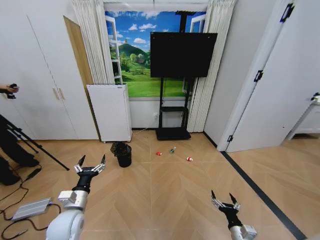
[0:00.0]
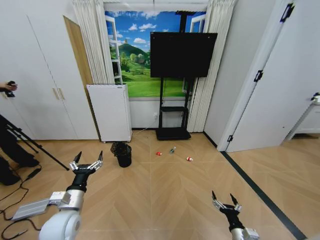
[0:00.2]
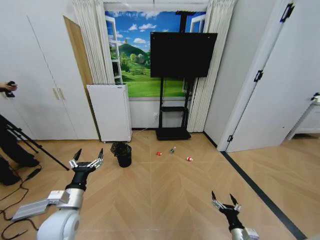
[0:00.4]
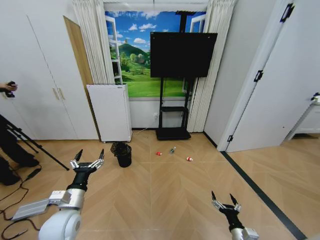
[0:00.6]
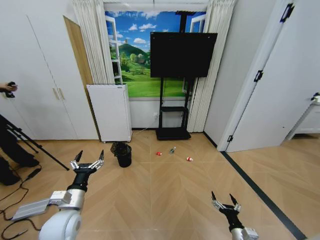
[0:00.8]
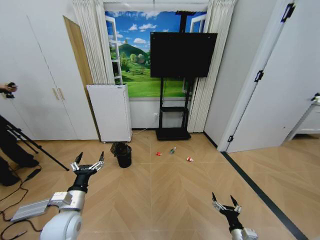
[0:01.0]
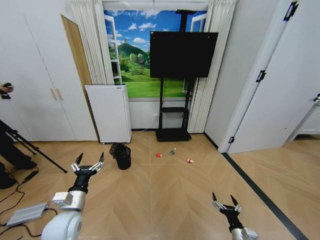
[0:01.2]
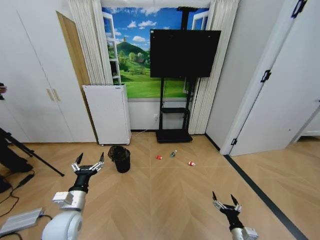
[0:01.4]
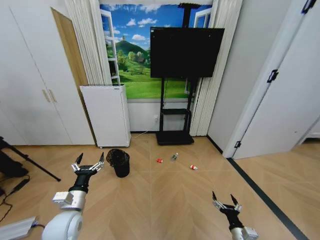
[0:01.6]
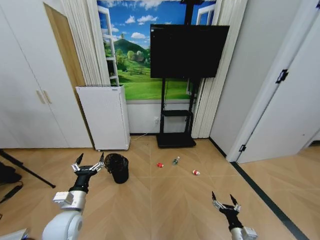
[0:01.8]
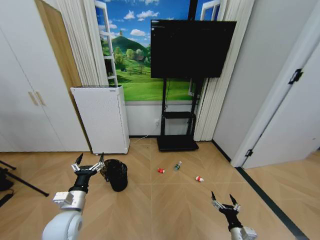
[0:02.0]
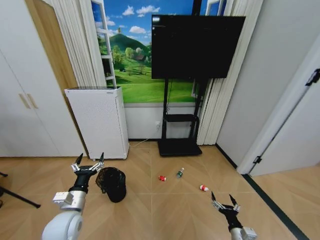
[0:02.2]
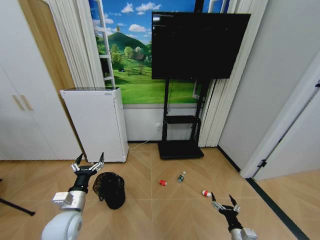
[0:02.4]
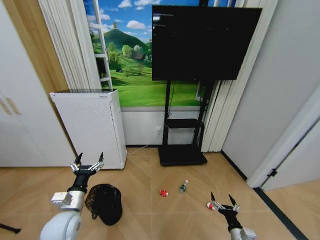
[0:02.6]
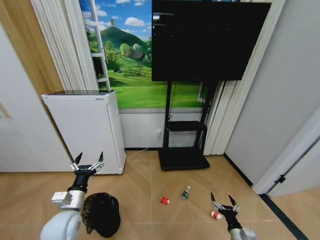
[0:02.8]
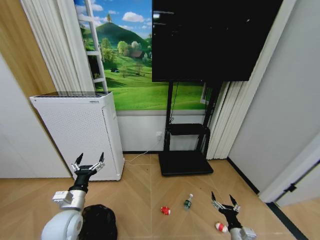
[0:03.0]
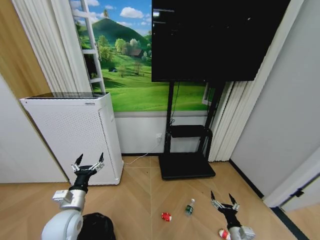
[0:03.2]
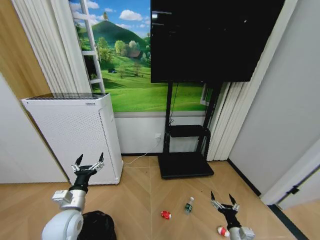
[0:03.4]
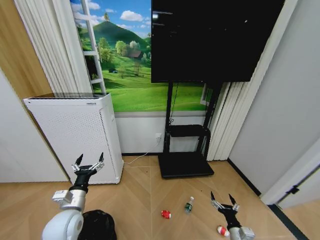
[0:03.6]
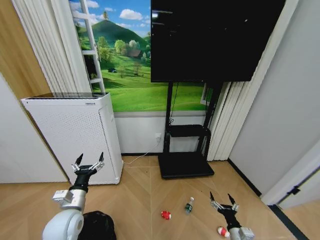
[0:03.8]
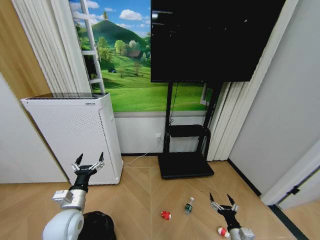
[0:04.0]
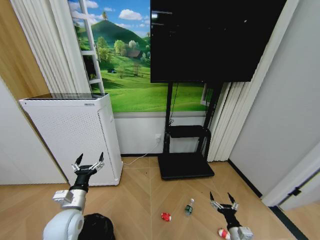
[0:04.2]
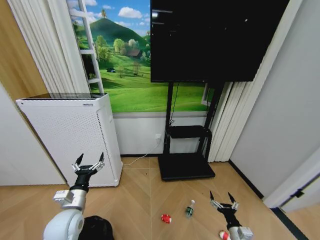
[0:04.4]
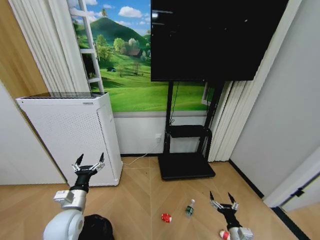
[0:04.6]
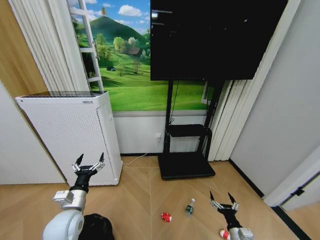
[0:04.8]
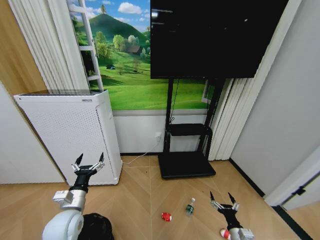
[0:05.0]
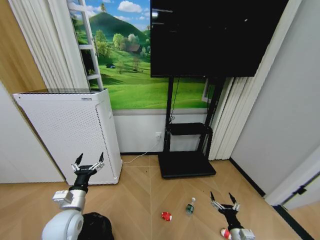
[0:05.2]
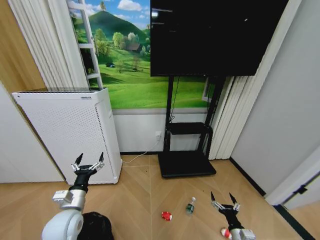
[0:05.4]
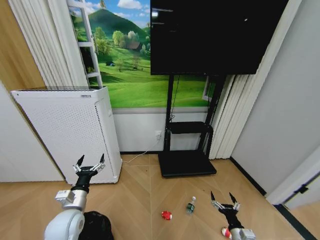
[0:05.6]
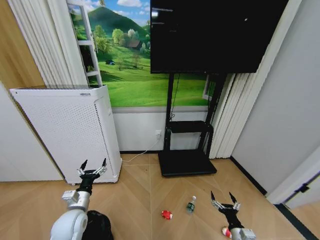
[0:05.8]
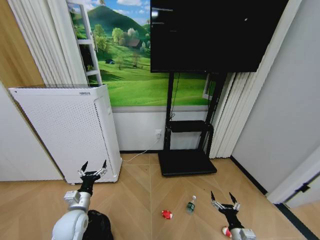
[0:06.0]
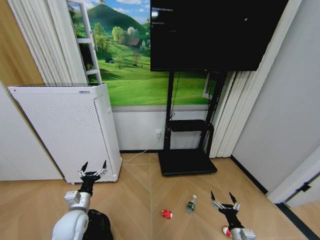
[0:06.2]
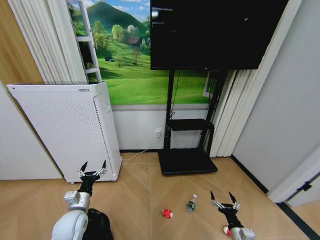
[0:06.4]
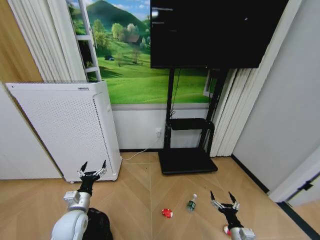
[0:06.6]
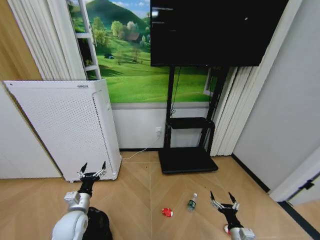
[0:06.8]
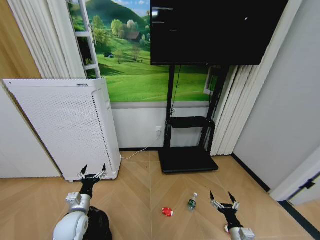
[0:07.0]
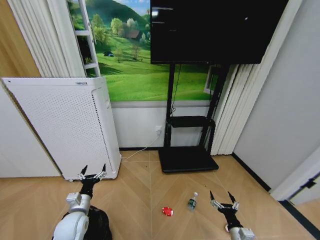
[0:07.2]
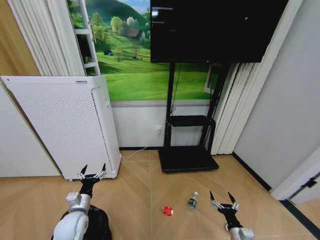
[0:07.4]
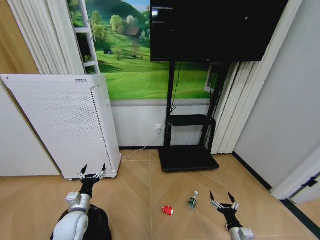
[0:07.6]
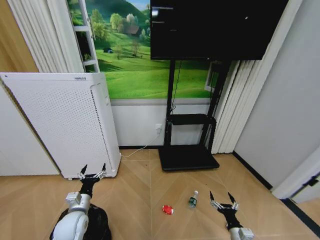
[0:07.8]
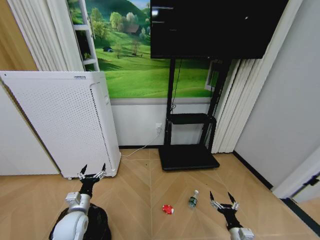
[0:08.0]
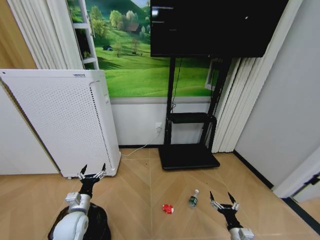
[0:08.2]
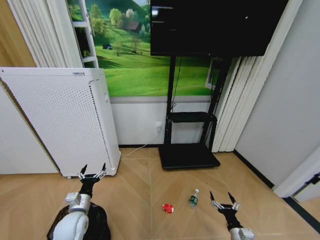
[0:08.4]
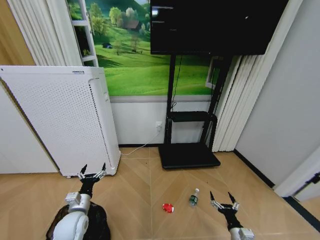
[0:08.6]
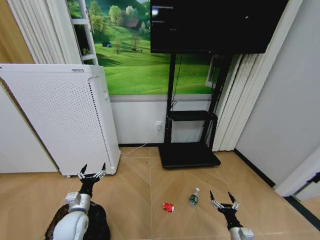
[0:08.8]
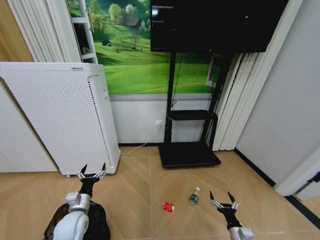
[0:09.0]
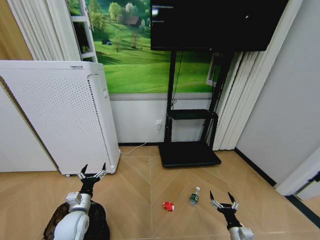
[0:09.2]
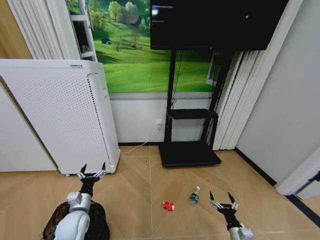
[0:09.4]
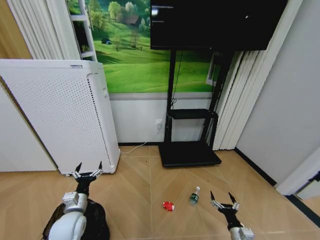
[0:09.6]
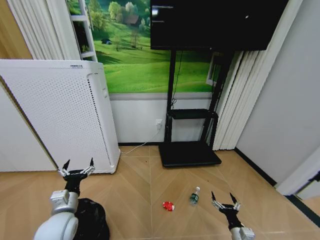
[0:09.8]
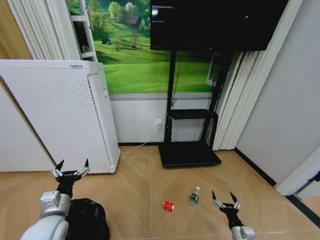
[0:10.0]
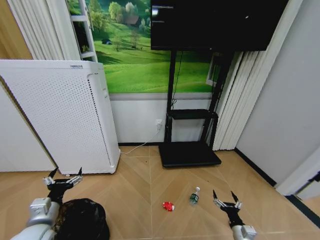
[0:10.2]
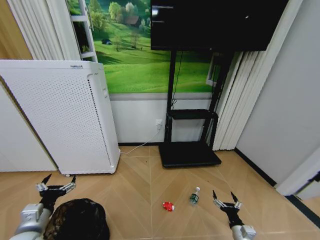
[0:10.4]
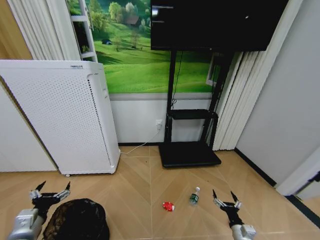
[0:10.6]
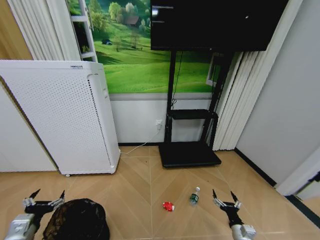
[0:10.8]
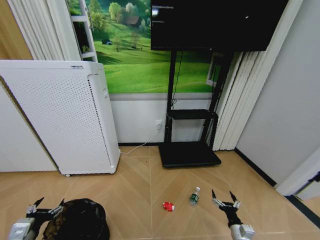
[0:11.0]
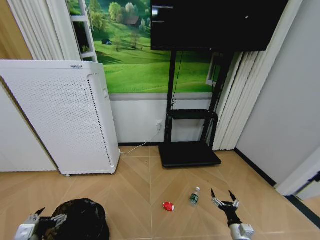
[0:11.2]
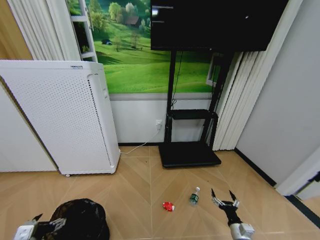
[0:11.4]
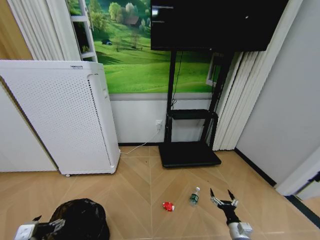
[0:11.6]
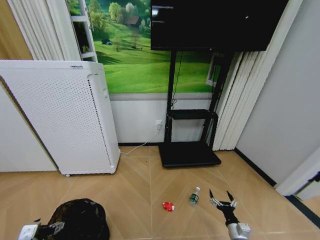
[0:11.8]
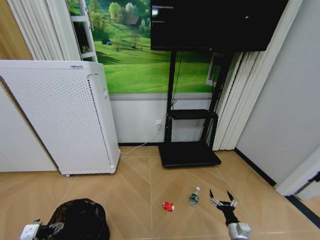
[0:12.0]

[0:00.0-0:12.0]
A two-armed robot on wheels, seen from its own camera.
Task of the whole recording: Pick up the trash bin and place the garbage on the floor into it.
0:03.0 to 0:06.0: The grippers move only a little.
0:06.0 to 0:07.6: The grippers make only small movements.
0:07.6 to 0:09.0: Neither gripper changes place.
0:09.0 to 0:10.4: The left gripper goes about 15 cm to the left, backward and upward.
0:10.4 to 0:12.0: The left gripper moves downward, about 5 cm.

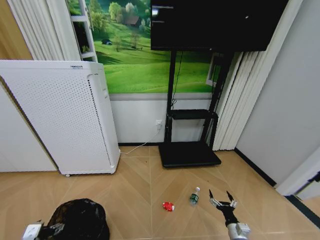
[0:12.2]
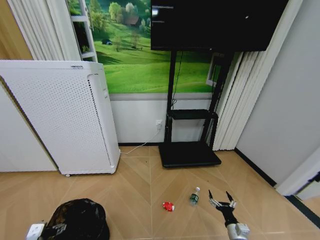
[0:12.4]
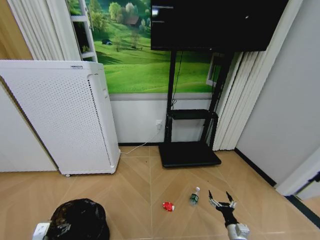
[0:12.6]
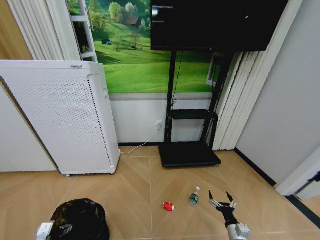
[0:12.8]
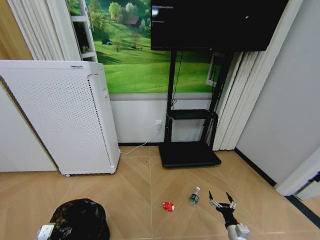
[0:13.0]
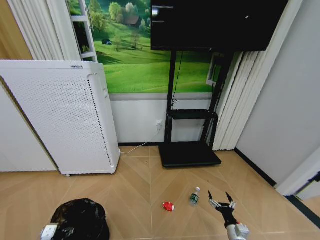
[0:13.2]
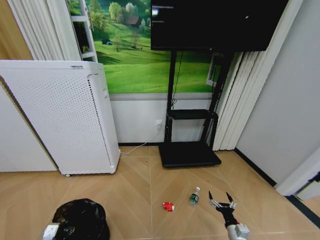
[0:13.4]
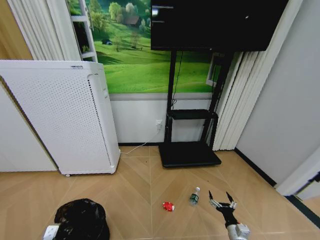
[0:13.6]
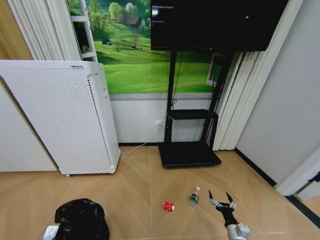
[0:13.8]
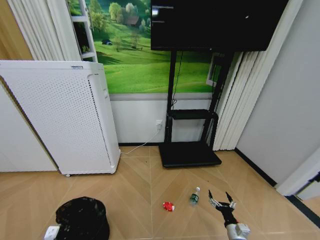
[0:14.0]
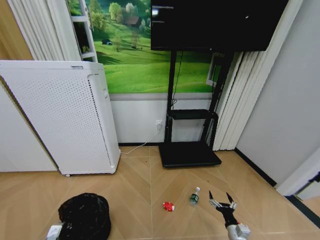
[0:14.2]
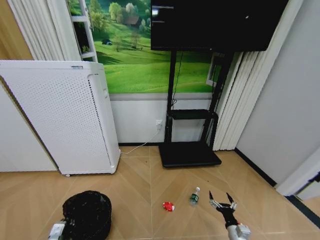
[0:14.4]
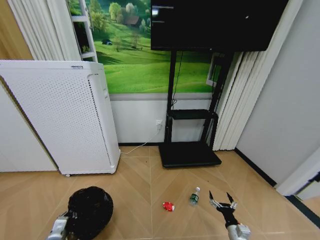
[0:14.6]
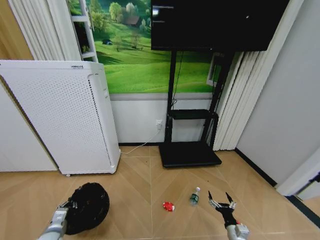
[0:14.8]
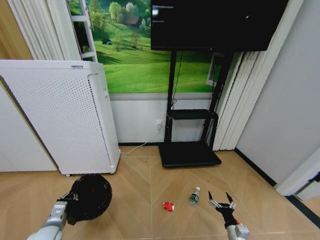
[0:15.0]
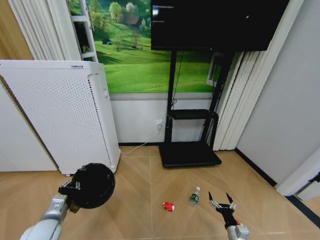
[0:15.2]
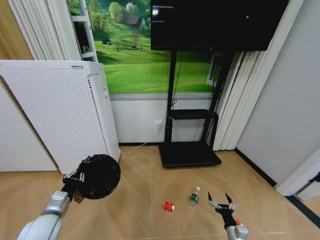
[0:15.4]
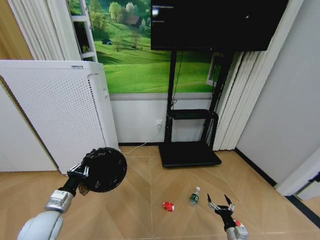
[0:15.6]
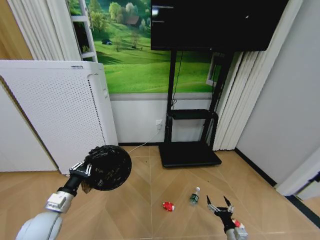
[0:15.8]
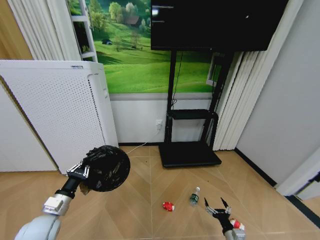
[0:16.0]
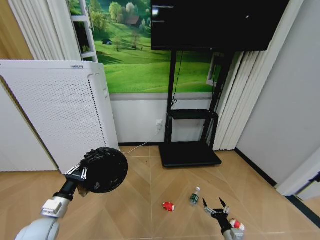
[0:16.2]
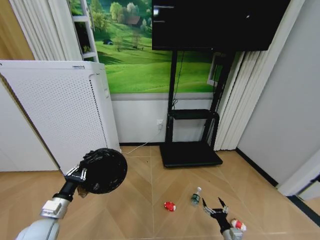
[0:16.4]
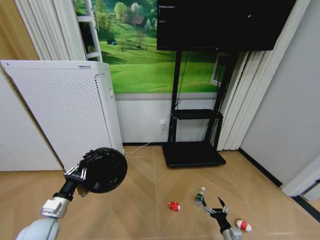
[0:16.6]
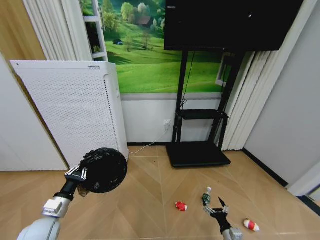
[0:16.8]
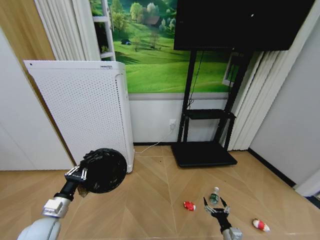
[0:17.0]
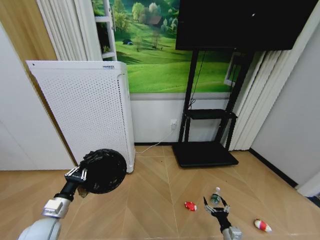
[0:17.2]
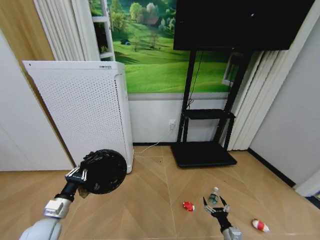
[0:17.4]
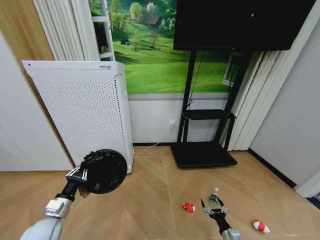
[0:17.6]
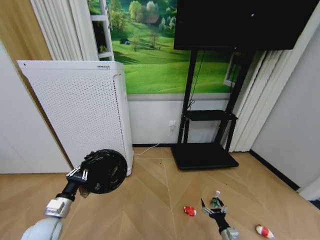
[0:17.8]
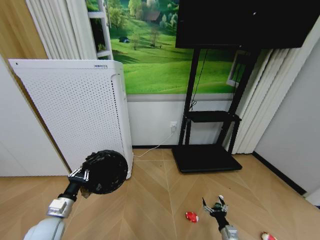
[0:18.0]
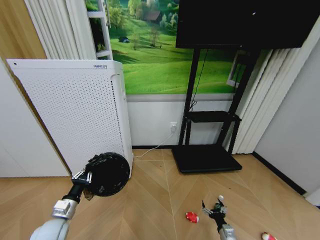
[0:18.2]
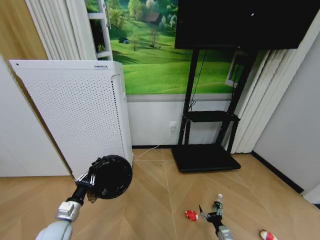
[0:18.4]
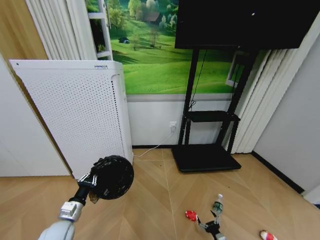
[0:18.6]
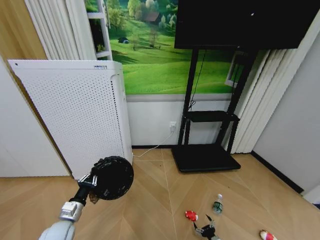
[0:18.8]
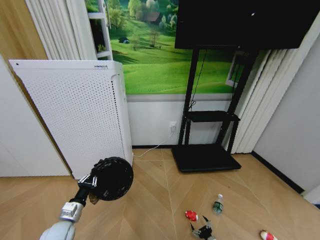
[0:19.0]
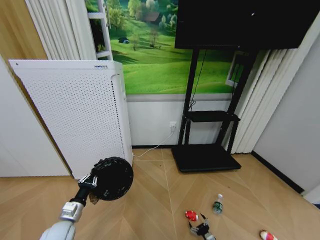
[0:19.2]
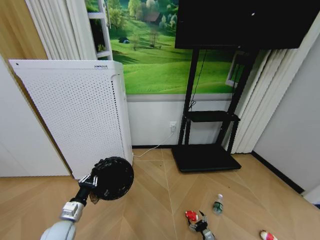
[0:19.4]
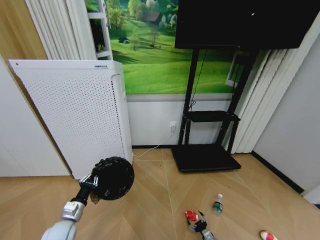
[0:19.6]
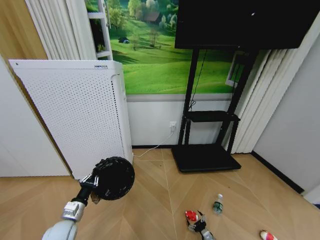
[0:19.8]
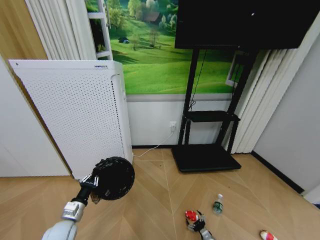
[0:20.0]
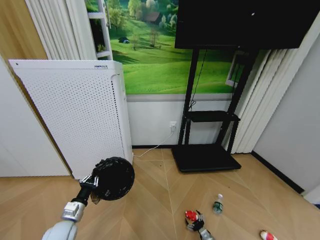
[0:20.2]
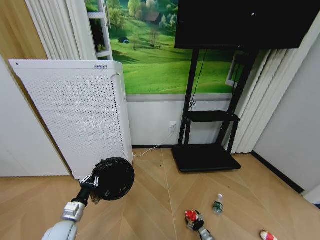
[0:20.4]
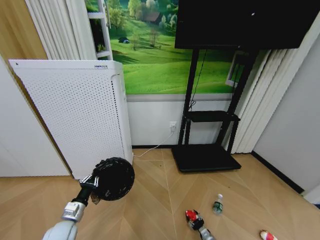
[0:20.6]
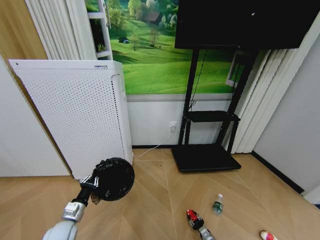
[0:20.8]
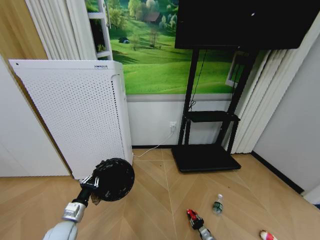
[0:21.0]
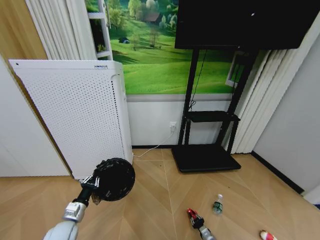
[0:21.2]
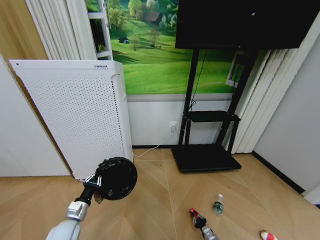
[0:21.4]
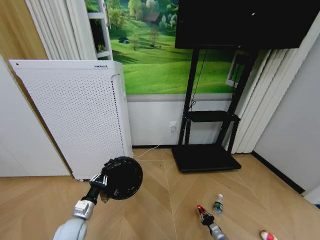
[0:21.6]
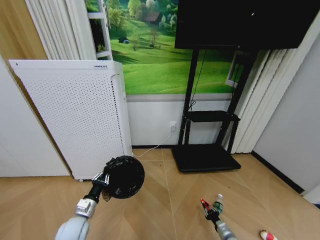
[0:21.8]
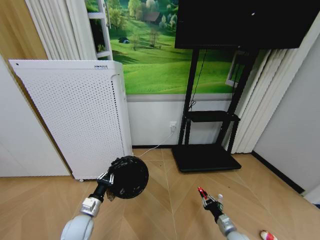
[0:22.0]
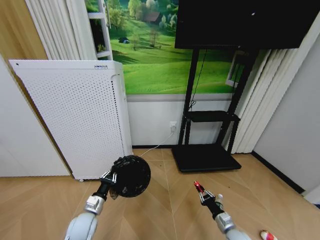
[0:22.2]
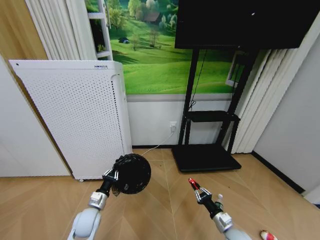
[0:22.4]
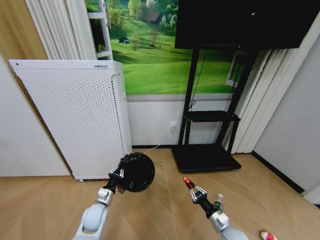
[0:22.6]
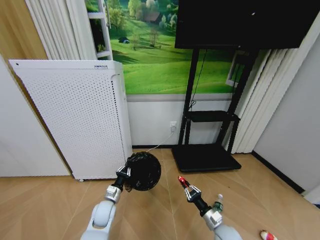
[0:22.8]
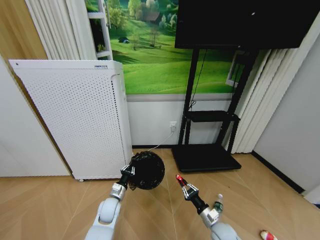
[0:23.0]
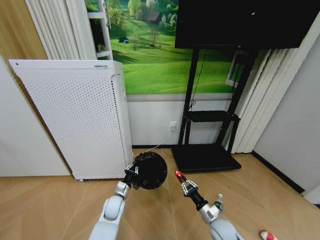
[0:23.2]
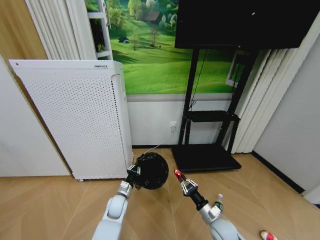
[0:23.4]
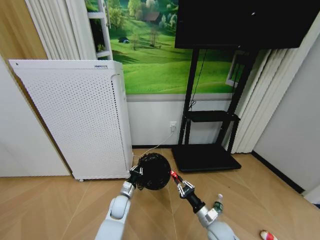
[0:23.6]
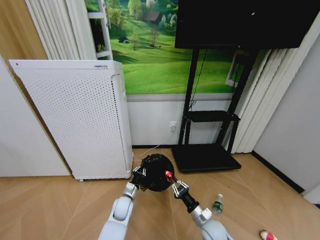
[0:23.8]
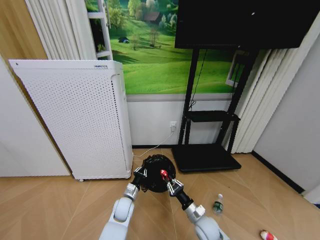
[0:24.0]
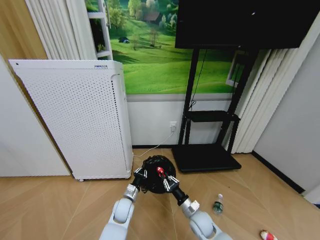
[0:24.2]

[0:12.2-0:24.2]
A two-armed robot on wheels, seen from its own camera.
Task of the whole recording: Pick up the trash bin and place the garbage on the floor into it.
0:12.2 to 0:13.8: The left gripper moves downward, roughly 5 cm, and closes up.
0:13.8 to 0:15.2: The left gripper moves upward and forward, roughly 10 cm, and closes.
0:18.2 to 0:19.8: The right gripper is displaced downward by about 10 cm.
0:21.2 to 0:22.6: The right gripper travels upward by roughly 20 cm. The left gripper is displaced to the right and forward by some 10 cm.
0:22.6 to 0:24.2: The left gripper goes roughly 10 cm to the right. The right gripper moves to the left and forward, roughly 15 cm.
